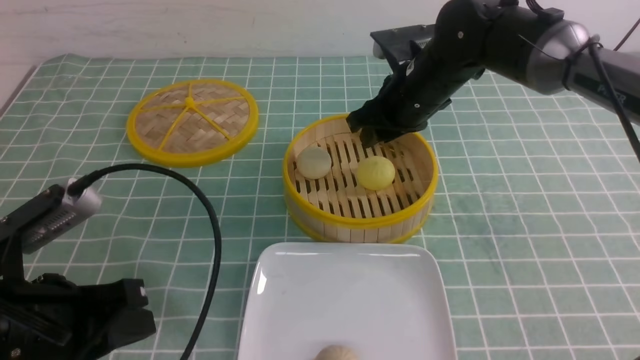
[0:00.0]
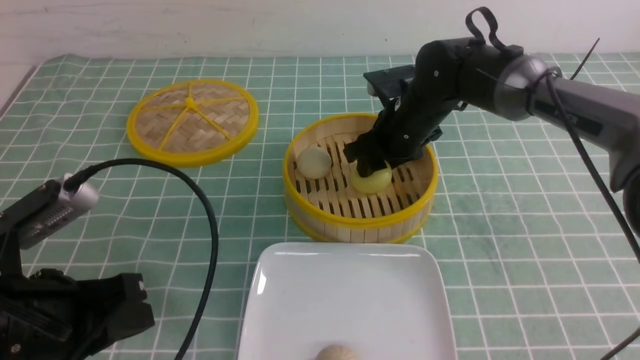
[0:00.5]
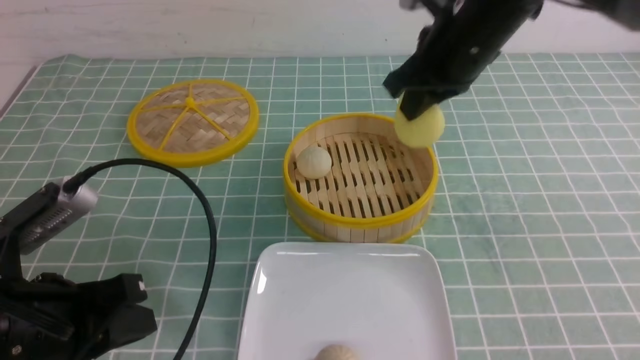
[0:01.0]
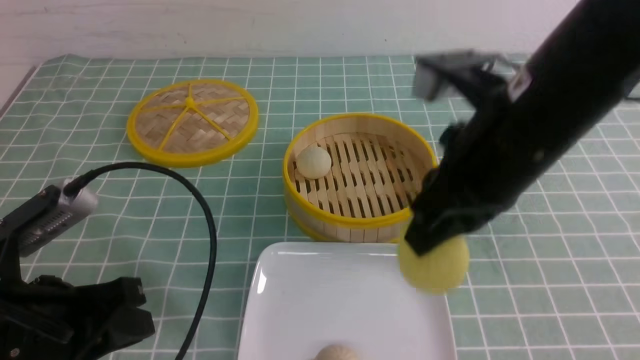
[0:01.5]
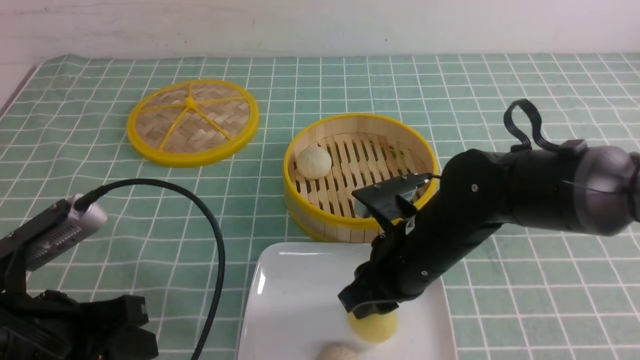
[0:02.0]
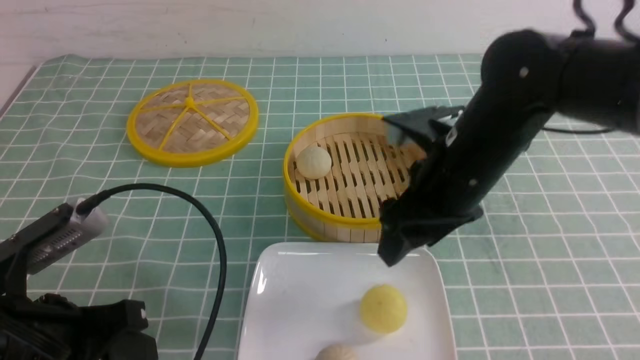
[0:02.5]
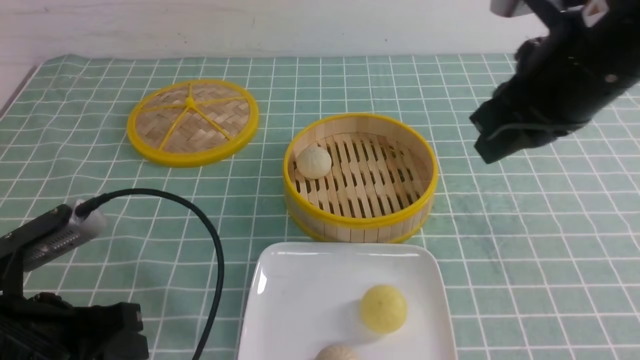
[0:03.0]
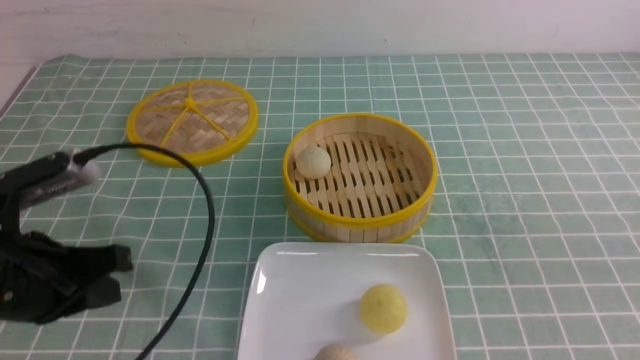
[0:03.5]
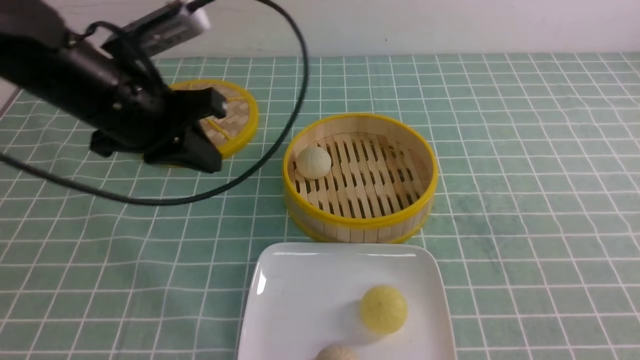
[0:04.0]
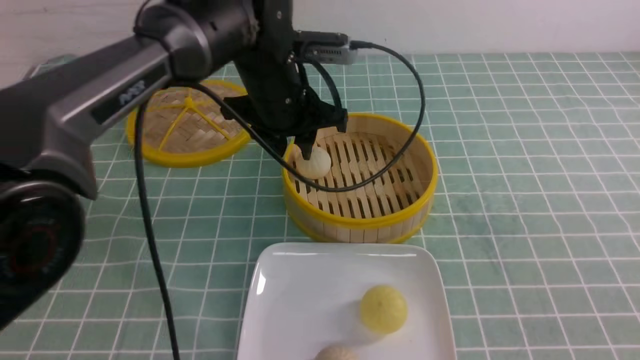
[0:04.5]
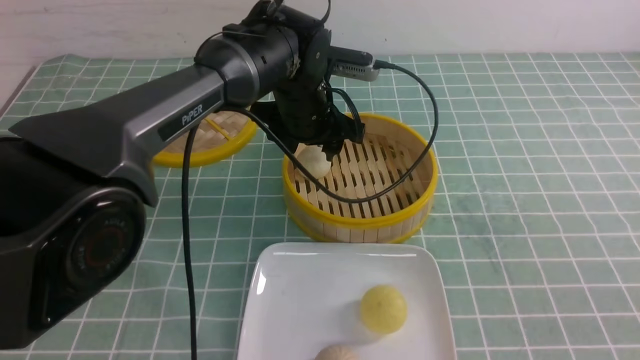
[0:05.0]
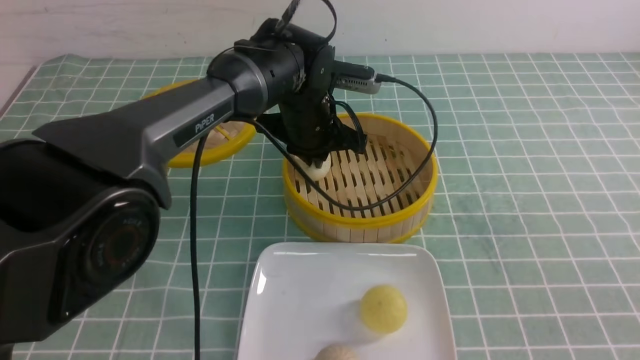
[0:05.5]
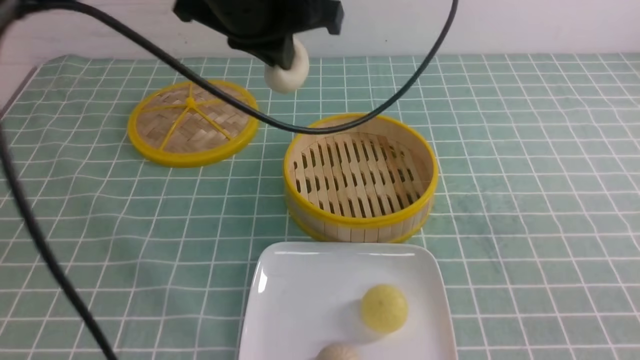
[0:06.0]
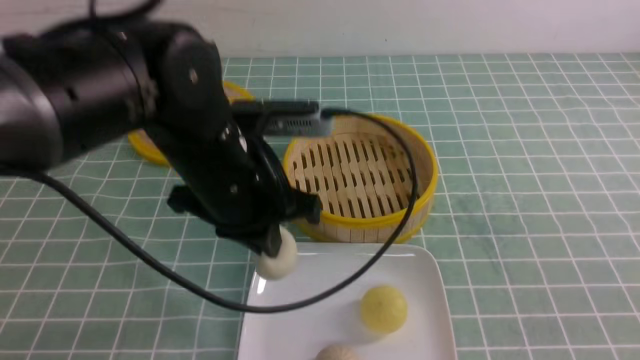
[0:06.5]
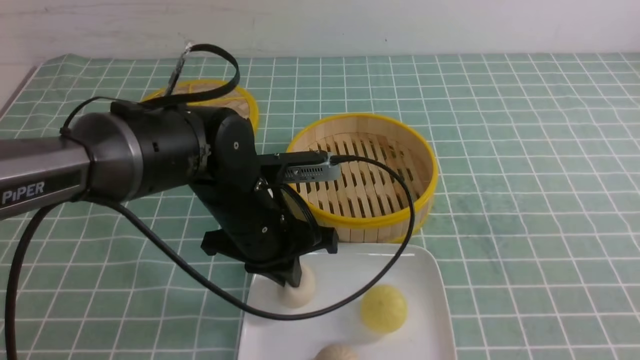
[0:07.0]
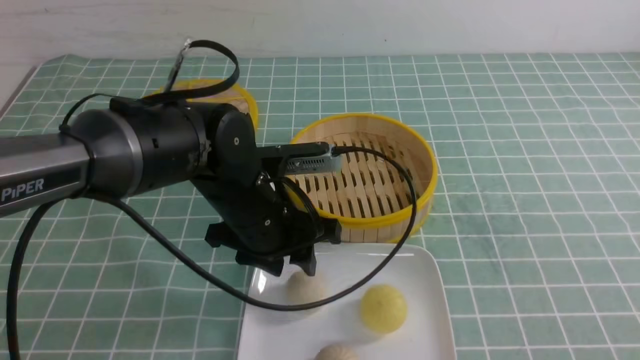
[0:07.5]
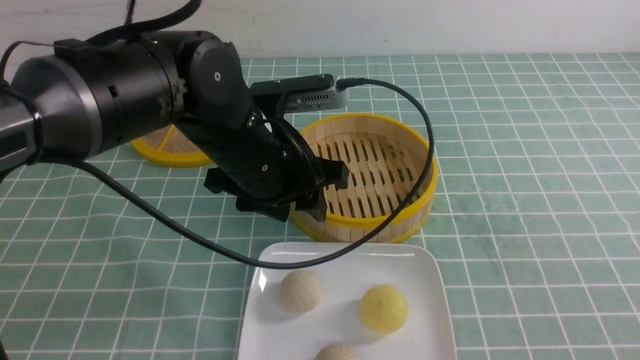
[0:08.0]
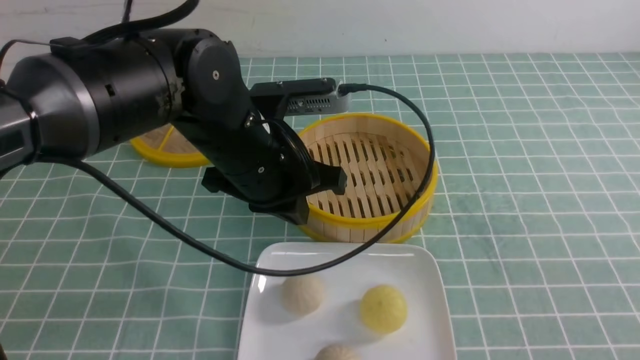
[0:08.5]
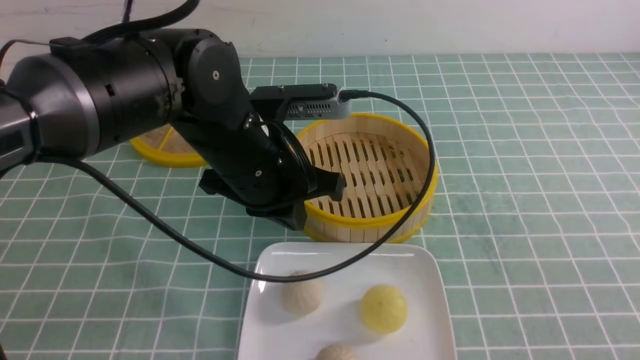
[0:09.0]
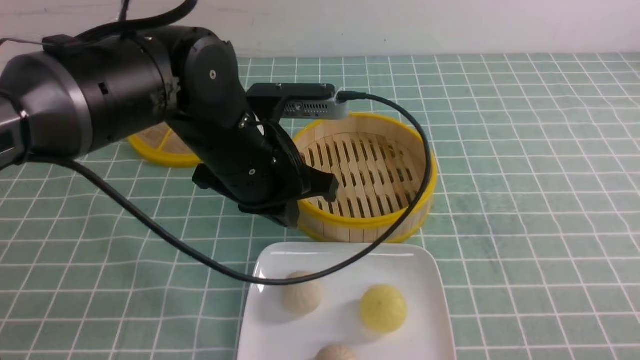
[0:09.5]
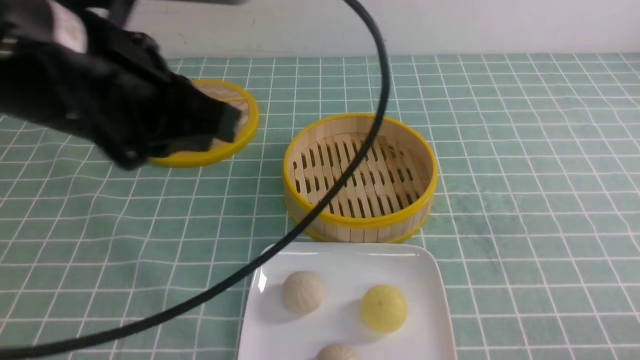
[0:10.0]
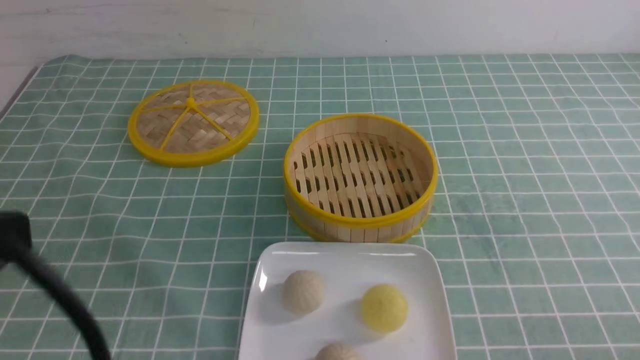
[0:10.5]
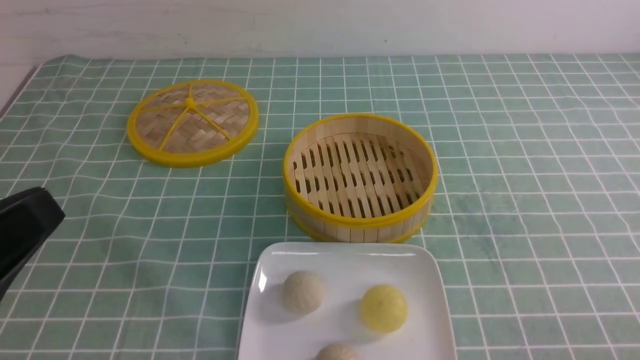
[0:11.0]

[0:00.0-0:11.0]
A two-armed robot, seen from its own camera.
Step, 0:01.0 to 0:02.0: use the right arm to put the steamed stuffed bun into the plate.
Step, 0:02.5 to 0:05.5: use the left arm to grab the steamed stuffed bun that is closest to it.
Step, 0:06.0 to 0:07.0: use the left arm to put the steamed stuffed bun into the plate.
0:00.0 to 0:02.0: The right gripper shifts approximately 15 cm backward, and closes, then reopens.
0:02.0 to 0:03.5: The left gripper heads forward, covering some 5 cm. The right gripper shifts about 30 cm upward, to the right and backward, and closes.
0:03.5 to 0:05.5: The right gripper goes about 10 cm downward. The left gripper travels forward and to the right by some 30 cm, and opens, then closes again.
0:05.5 to 0:07.5: The right gripper goes approximately 10 cm backward and to the right. The left gripper moves backward, approximately 15 cm, goes upward and returns, some 15 cm each way, and opens up.
0:07.5 to 0:09.0: The left gripper shifts about 5 cm upward, and closes its fingers, while the right gripper goes approximately 10 cm downward and forward.
0:09.0 to 0:11.0: The left gripper heads backward and to the left, covering about 30 cm, while the right gripper is displaced downward by about 10 cm.

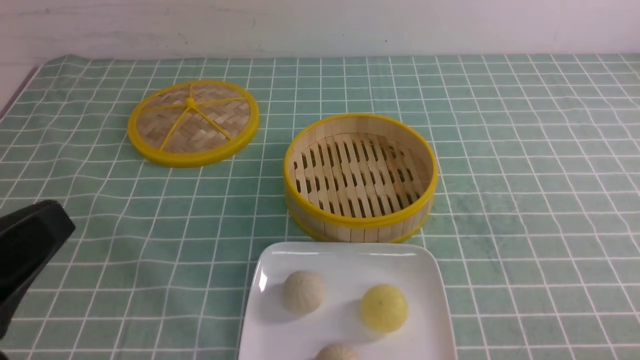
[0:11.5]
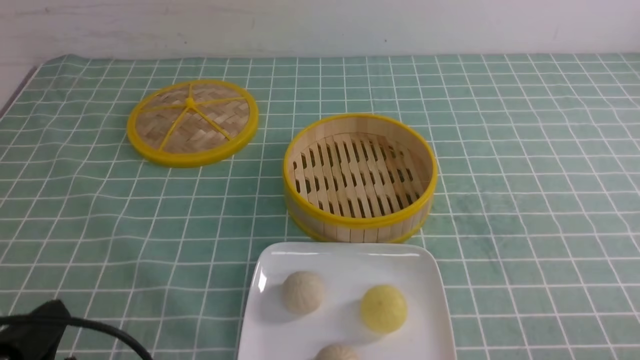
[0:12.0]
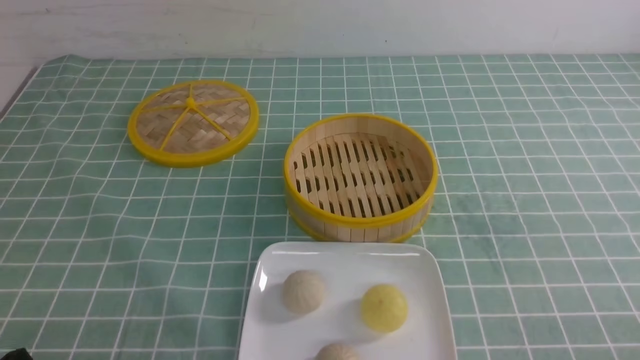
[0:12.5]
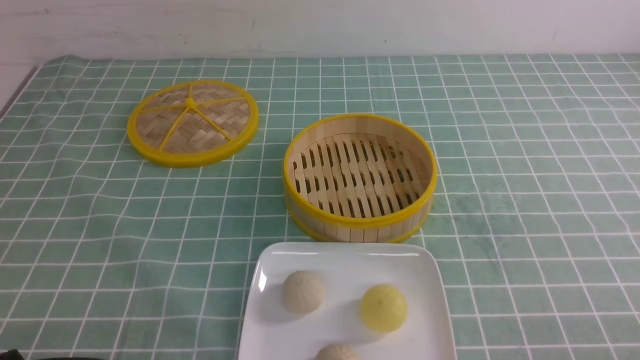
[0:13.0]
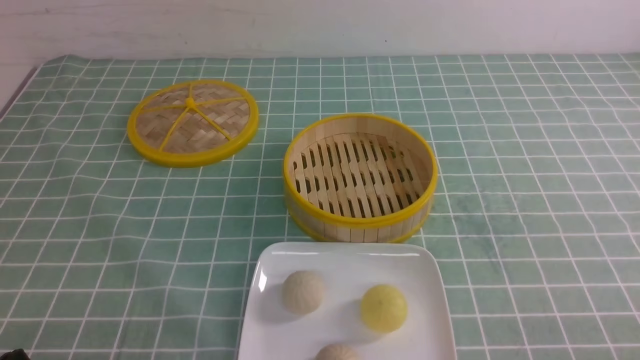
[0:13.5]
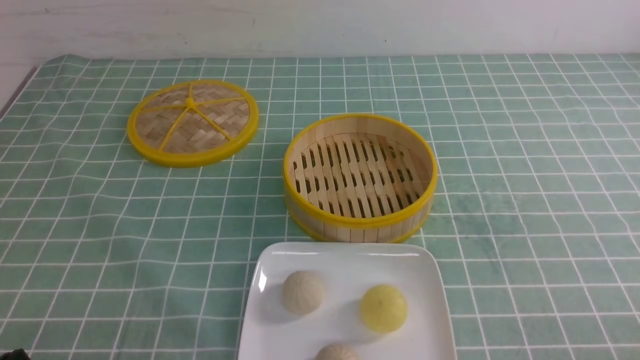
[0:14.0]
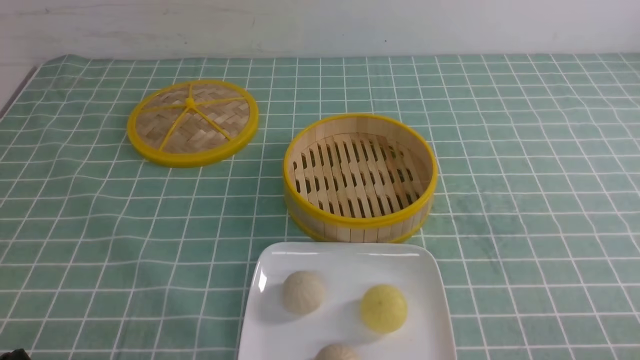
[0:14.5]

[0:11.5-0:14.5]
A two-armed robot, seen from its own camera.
0:11.5 to 0:13.0: The left gripper heads downward, covering approximately 15 cm.
0:13.0 to 0:14.5: The two grippers keep their place.

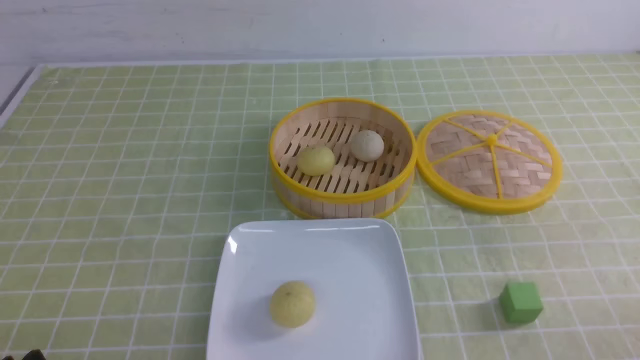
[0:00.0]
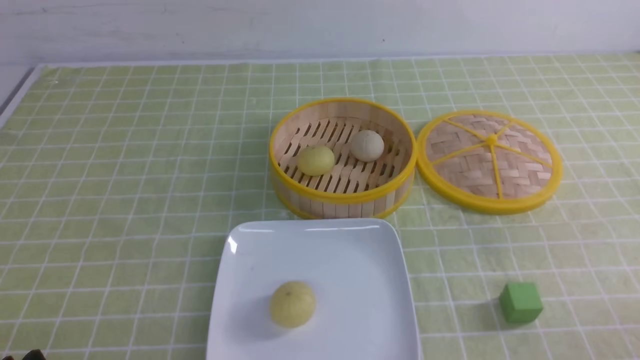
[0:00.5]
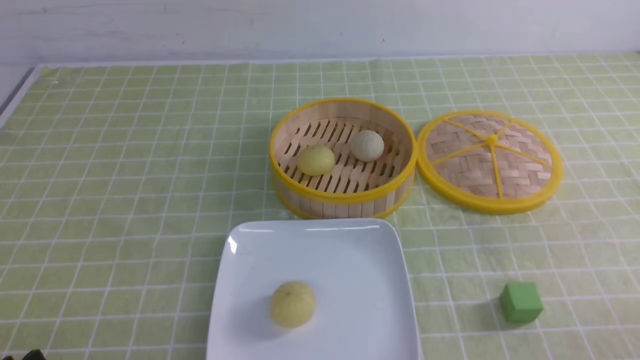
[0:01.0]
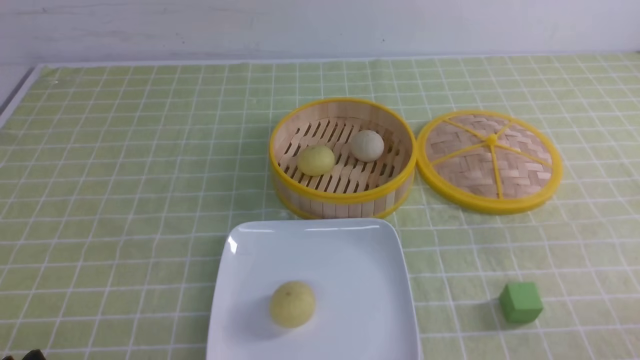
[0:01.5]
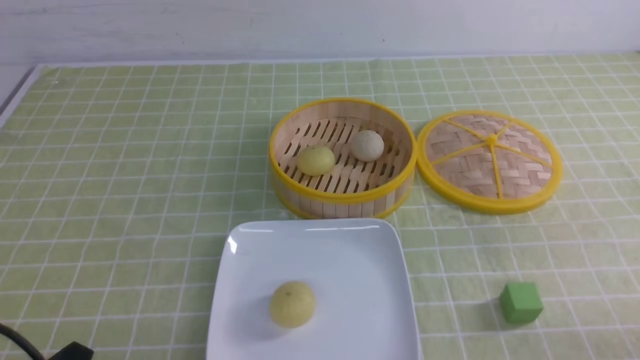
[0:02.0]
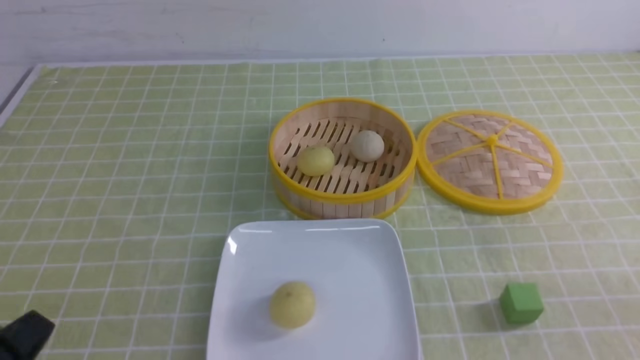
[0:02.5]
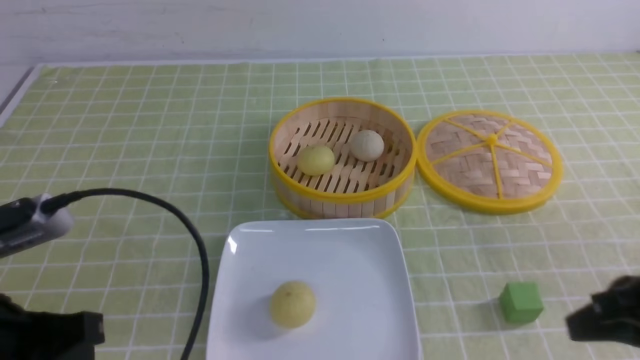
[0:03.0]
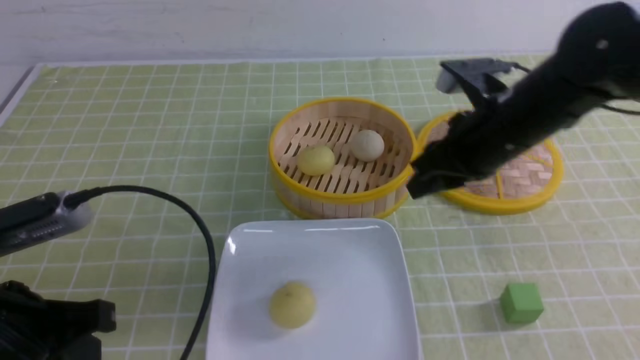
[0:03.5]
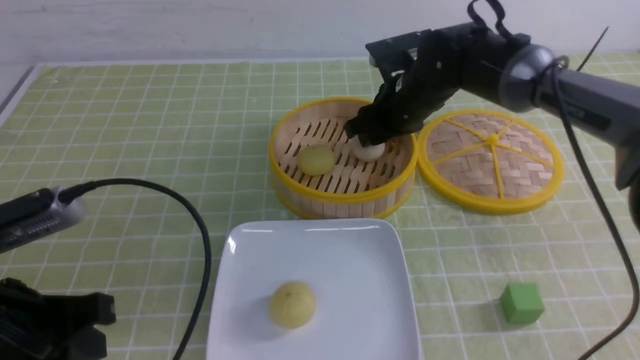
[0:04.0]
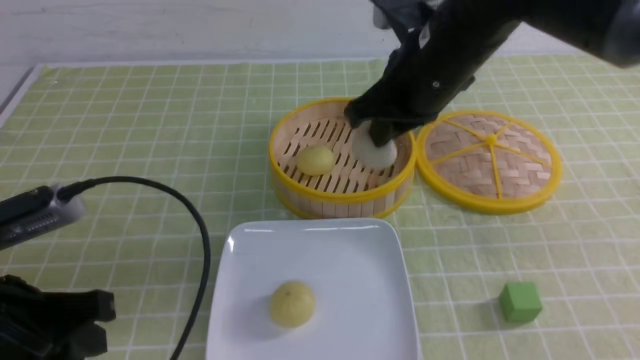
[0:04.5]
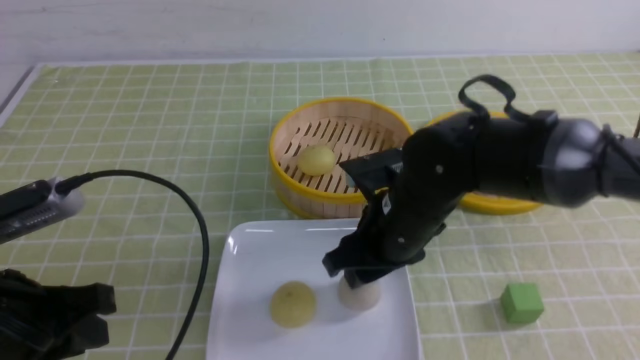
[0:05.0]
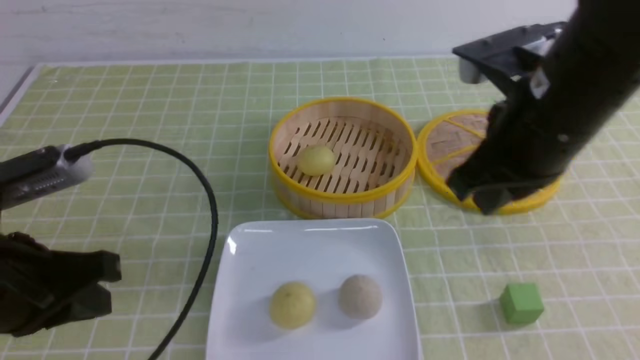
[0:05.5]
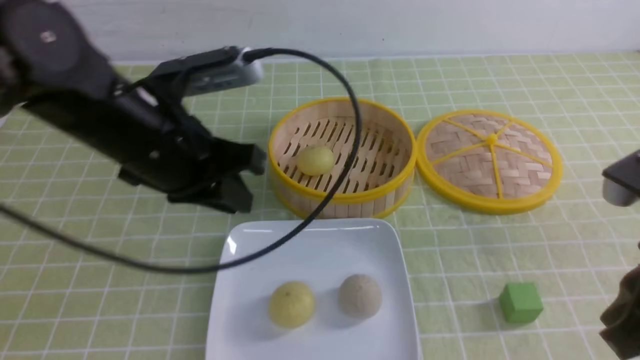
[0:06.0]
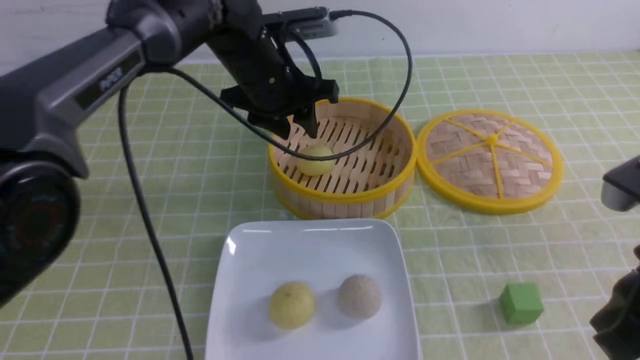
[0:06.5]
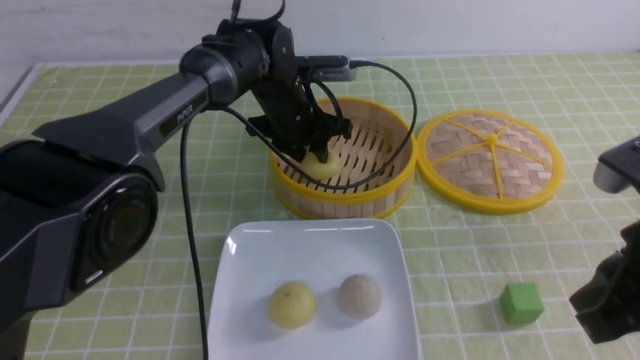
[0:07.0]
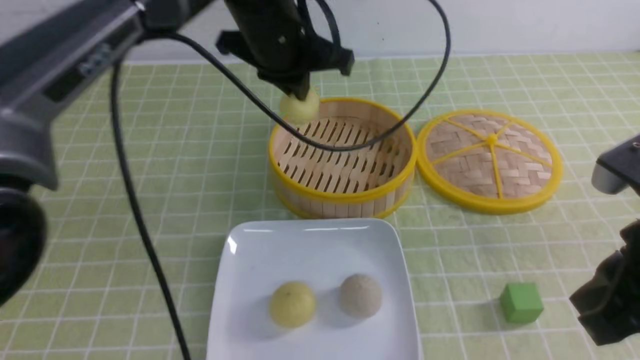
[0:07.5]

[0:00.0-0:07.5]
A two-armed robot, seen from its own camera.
Step, 0:00.0 to 0:04.0: use the right arm to grab the steamed stuffed bun that is closest to it.
Step, 0:04.5 to 0:05.0: use the right arm to put the steamed stuffed bun into the plate.
Step, 0:05.5 to 0:07.0: use the left arm to grab the steamed stuffed bun that is closest to it.
0:02.0 to 0:04.0: The right gripper travels forward and to the left by about 50 cm, and closes, then reopens, while the left gripper moves upward and forward, approximately 15 cm, and closes, then reopens.
0:04.0 to 0:05.5: The right gripper goes some 25 cm backward and upward, and closes its fingers.
0:05.5 to 0:07.5: The right gripper shifts approximately 10 cm backward and to the right. Meanwhile the left gripper travels forward and to the right by some 30 cm, and opens, then closes once more.
